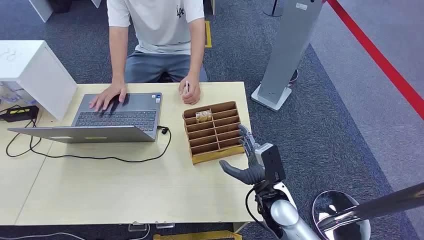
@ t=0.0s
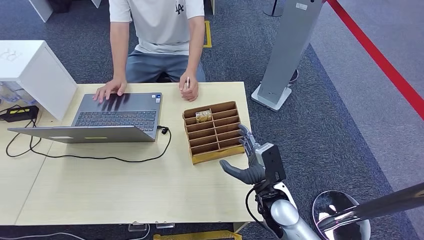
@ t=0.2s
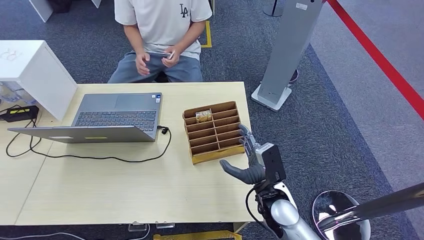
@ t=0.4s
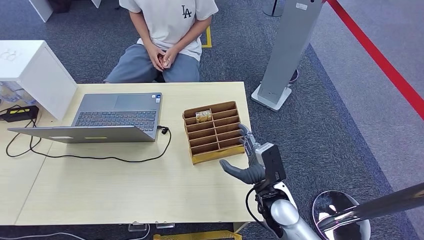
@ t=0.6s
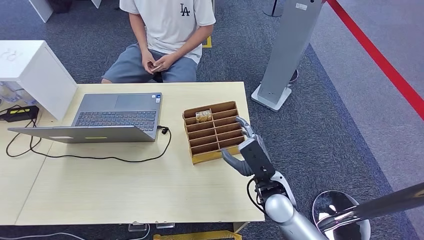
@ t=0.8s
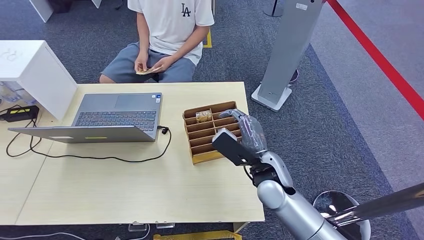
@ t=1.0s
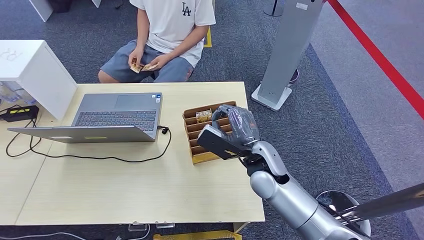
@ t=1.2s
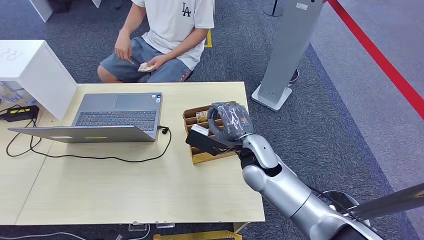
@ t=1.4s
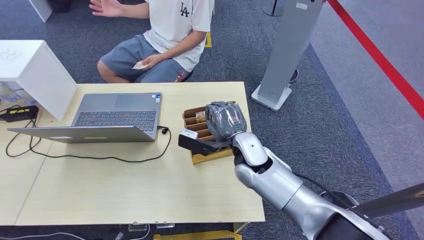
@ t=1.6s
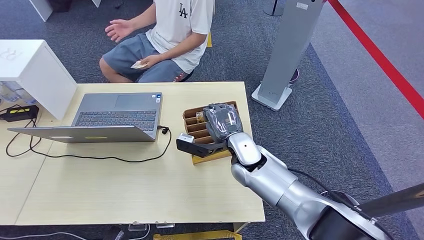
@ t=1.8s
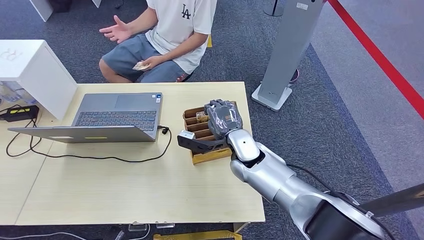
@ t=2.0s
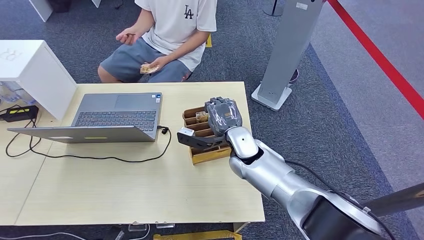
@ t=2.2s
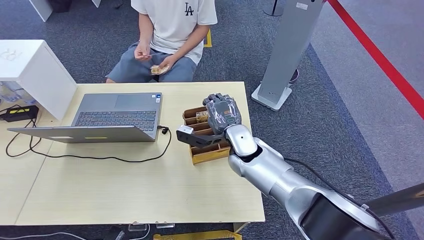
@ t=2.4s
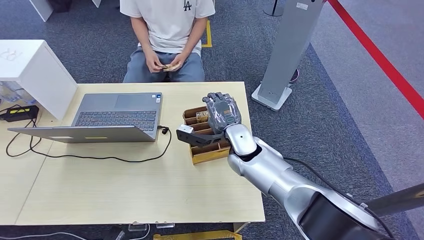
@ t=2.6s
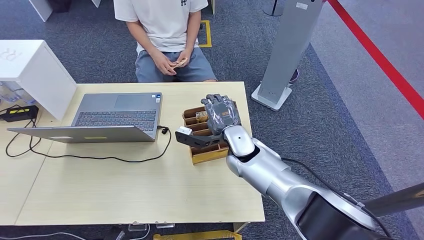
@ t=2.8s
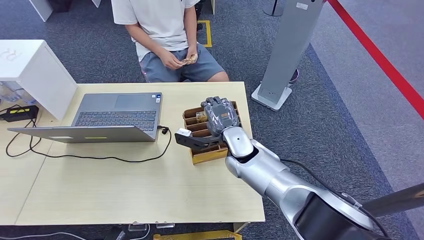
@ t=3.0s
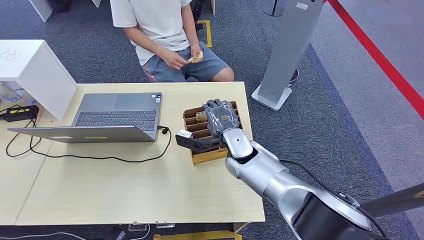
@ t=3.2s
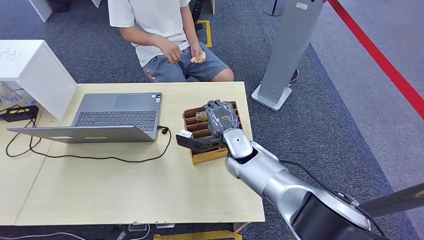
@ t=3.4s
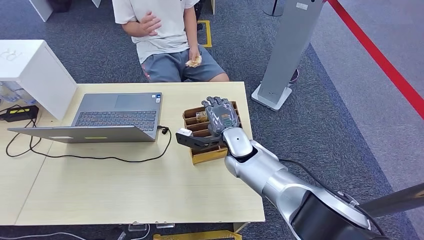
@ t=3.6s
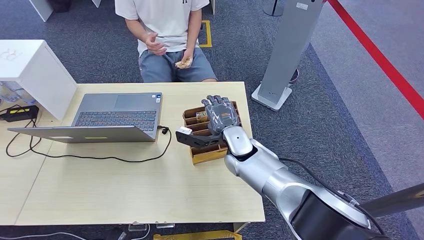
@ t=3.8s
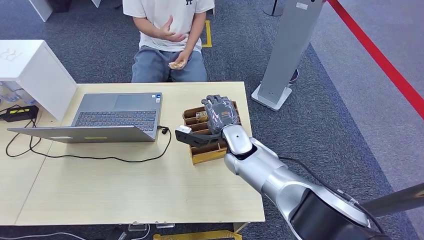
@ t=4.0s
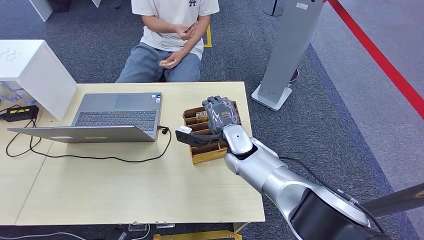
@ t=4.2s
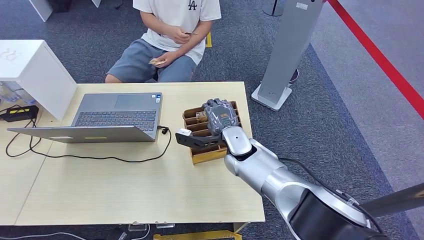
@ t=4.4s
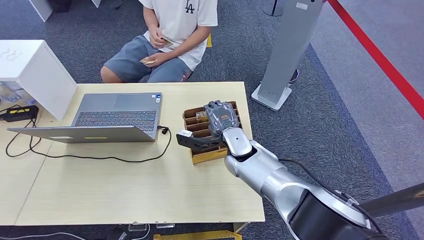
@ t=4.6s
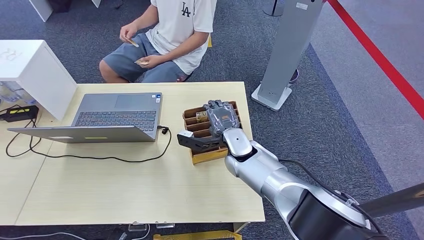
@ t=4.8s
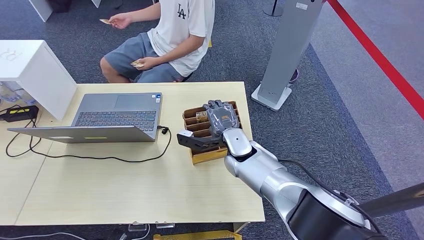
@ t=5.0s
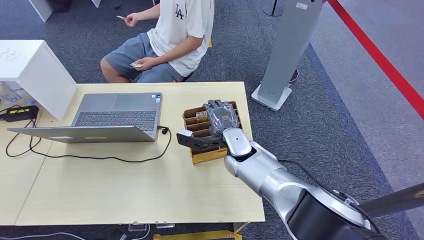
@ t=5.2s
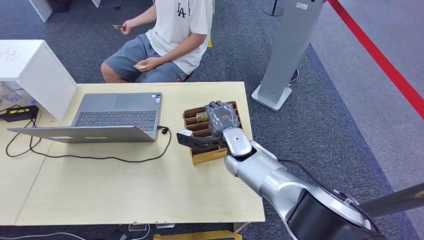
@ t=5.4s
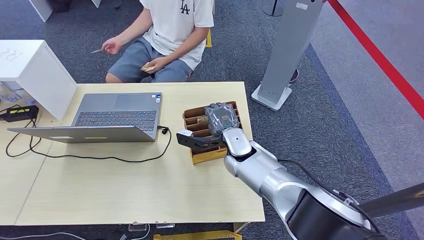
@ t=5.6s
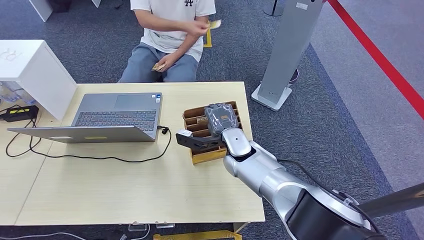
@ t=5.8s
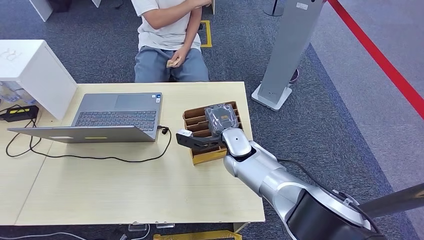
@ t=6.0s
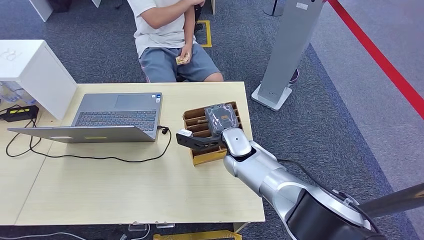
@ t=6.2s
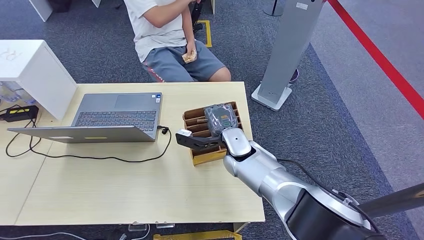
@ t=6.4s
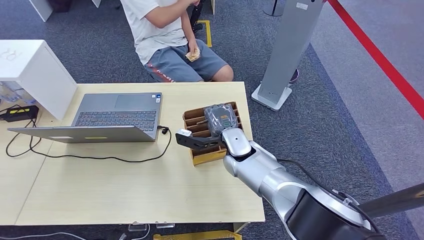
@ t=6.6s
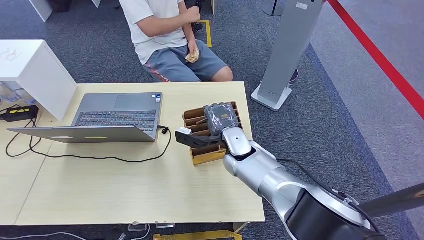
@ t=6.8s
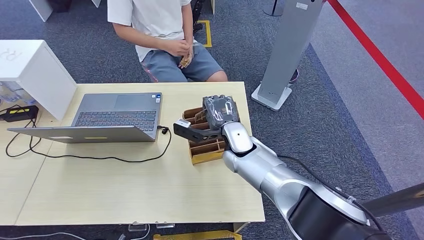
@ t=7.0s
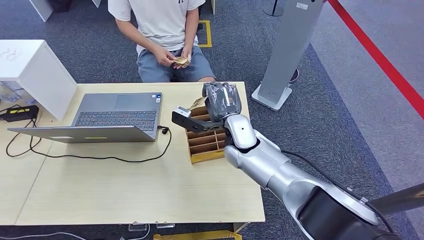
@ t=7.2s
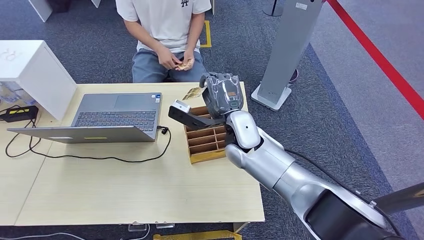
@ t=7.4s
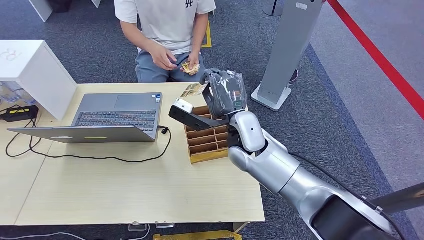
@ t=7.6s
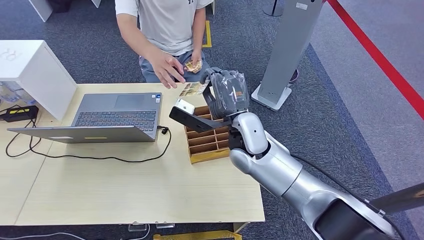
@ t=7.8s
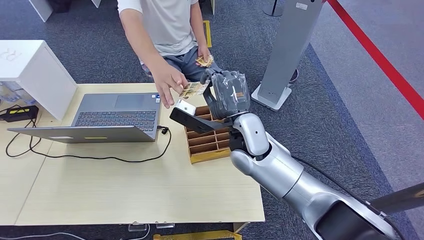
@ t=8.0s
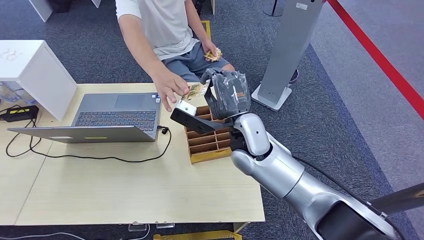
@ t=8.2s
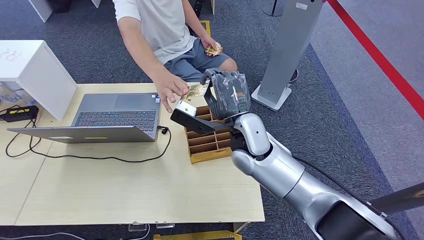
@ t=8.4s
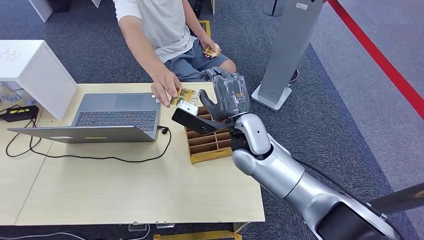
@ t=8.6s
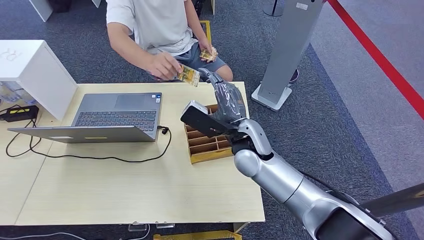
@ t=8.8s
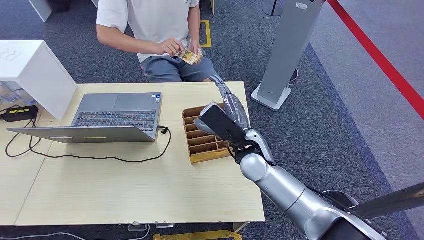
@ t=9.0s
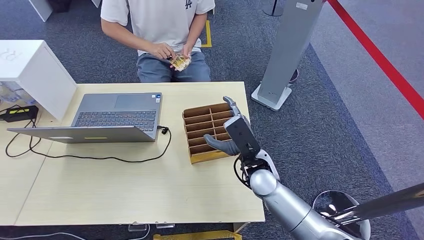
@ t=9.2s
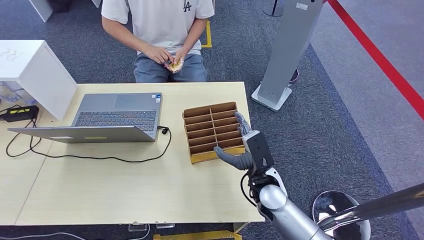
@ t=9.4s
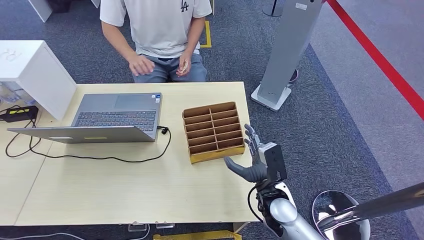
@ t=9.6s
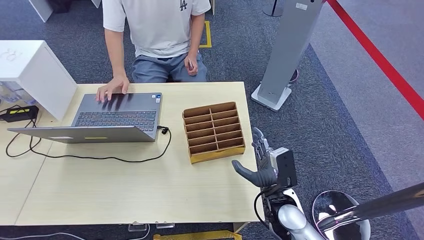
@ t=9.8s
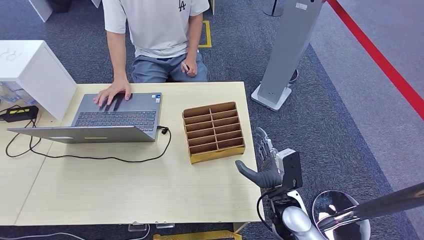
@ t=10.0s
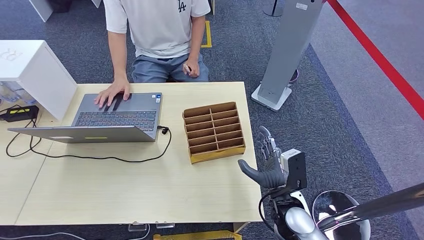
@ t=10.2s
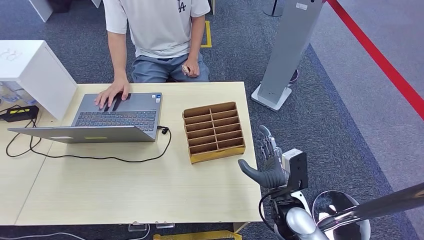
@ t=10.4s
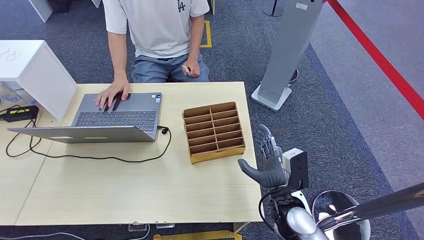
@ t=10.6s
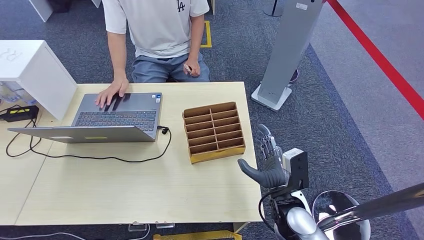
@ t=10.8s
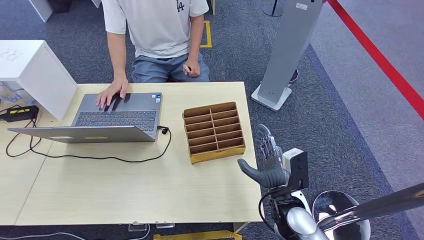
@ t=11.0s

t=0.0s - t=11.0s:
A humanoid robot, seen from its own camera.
Step, t=0.0s - t=7.2s: Pick up the key card from the card box.
Step, t=7.4s - t=11.0s: Hand the key card to the target.
t=1.6s - t=3.2s: The right hand shifts by approximately 5 cm.
t=3.2s - t=6.2s: Neither hand changes place.
t=6.2s - t=7.8s: The right hand goes roughly 10 cm upward.
t=7.8s - t=9.4s: The right hand is displaced downward, backward and to the right by roughly 15 cm.
t=9.4s - t=11.0s: The right hand moves backward and to the right, approximately 10 cm.
